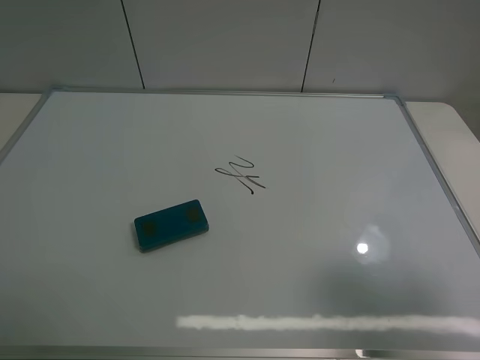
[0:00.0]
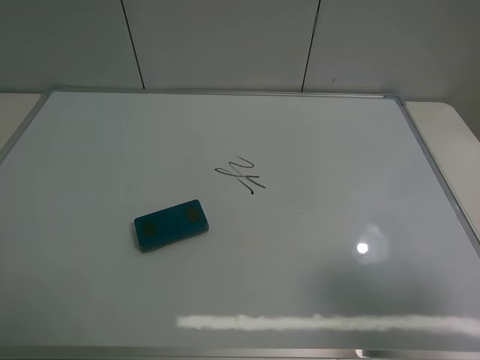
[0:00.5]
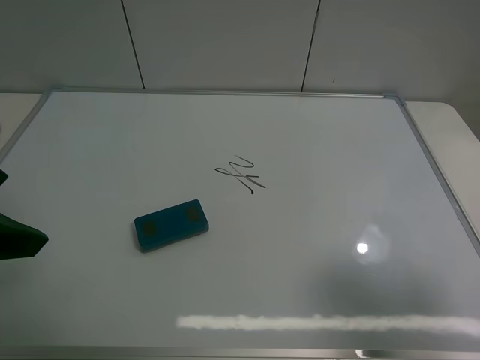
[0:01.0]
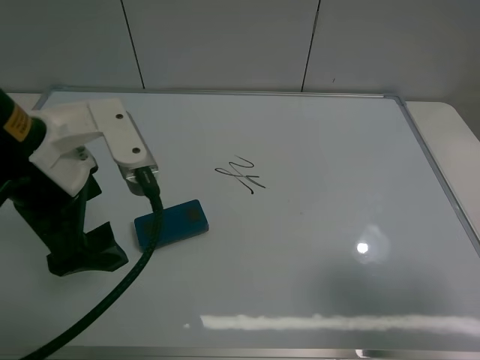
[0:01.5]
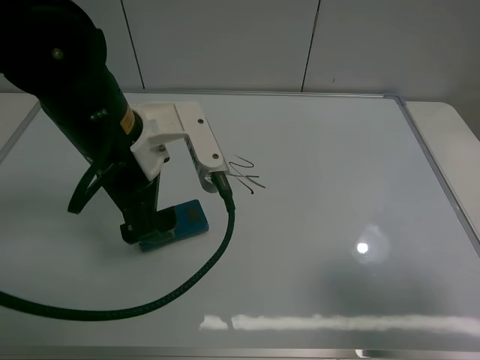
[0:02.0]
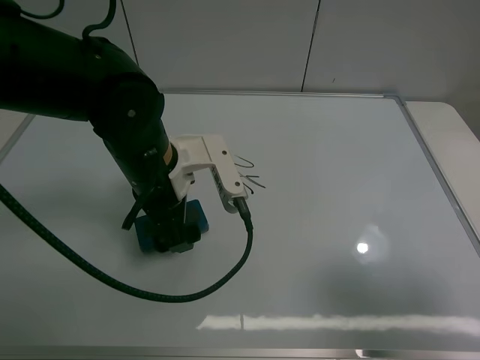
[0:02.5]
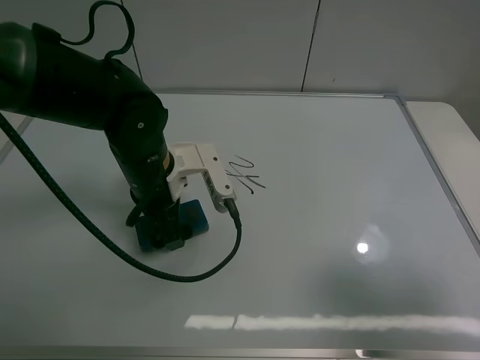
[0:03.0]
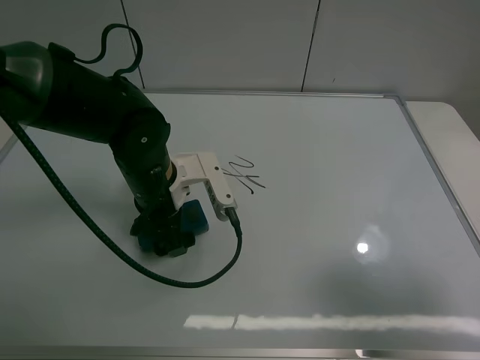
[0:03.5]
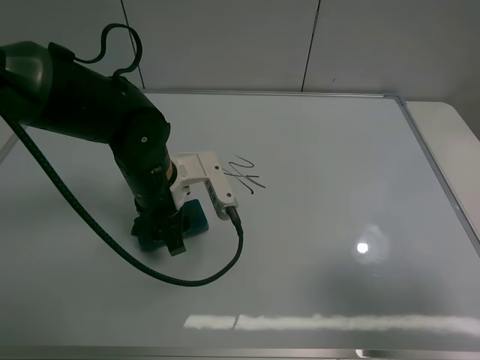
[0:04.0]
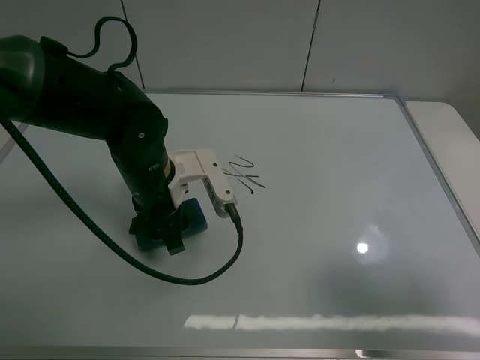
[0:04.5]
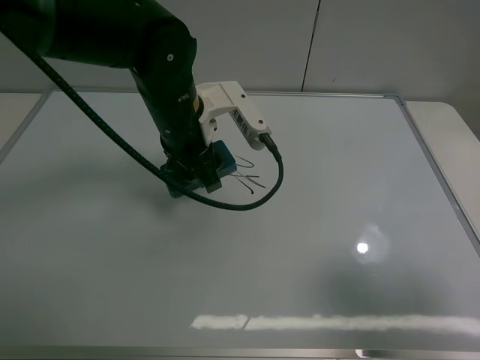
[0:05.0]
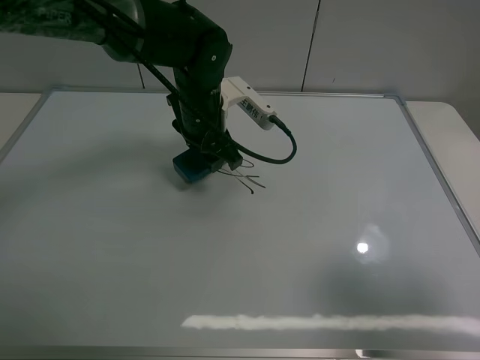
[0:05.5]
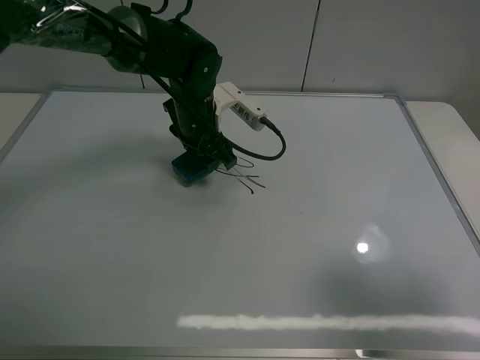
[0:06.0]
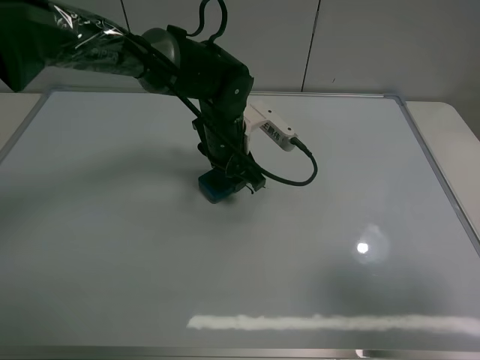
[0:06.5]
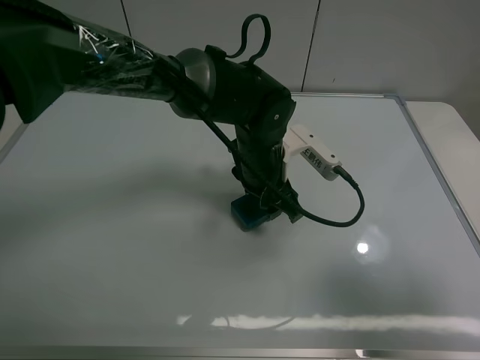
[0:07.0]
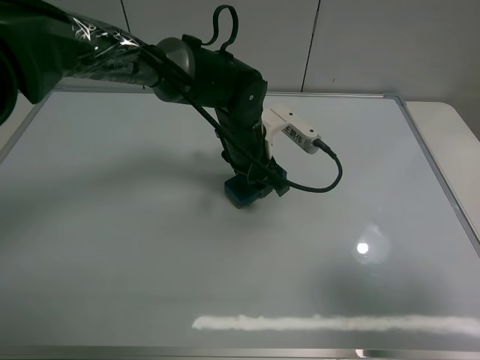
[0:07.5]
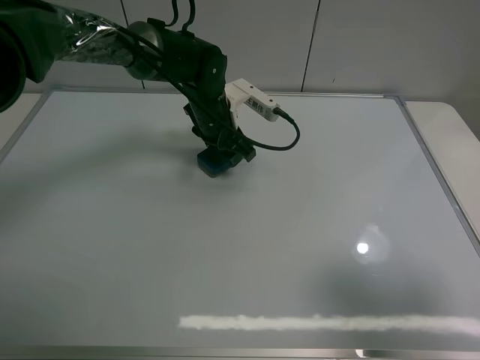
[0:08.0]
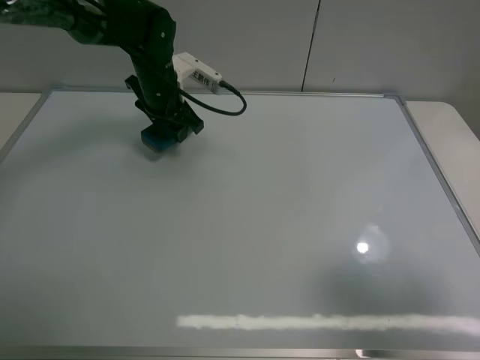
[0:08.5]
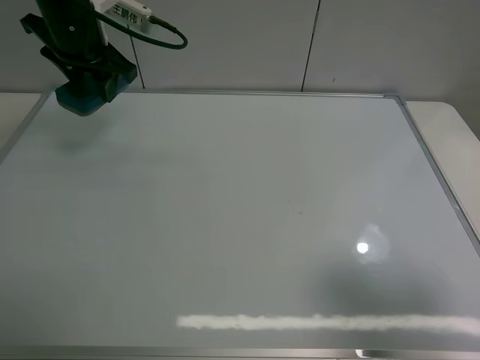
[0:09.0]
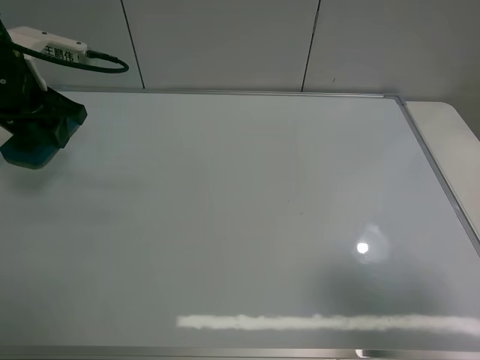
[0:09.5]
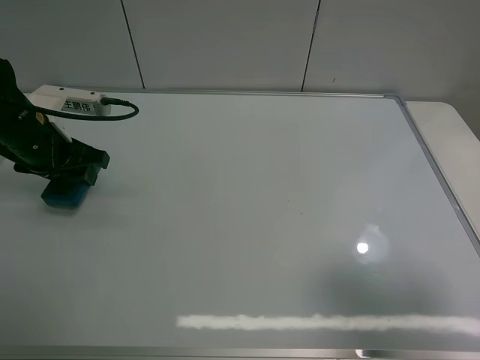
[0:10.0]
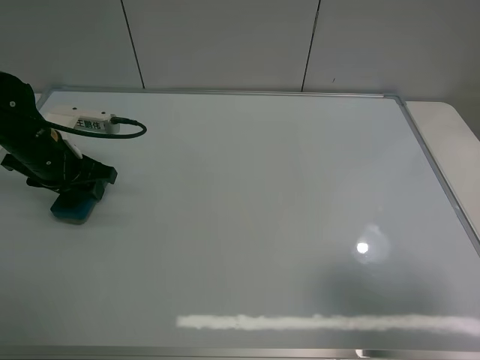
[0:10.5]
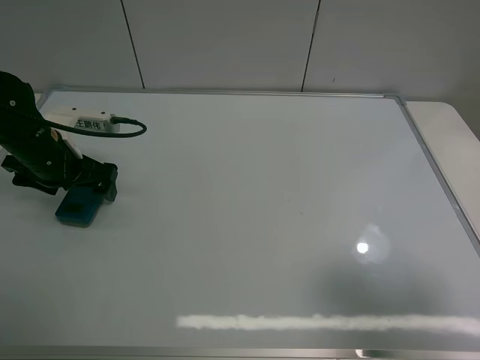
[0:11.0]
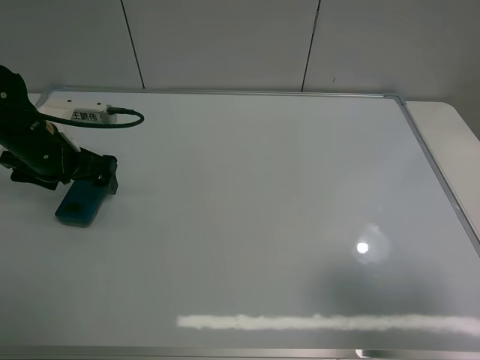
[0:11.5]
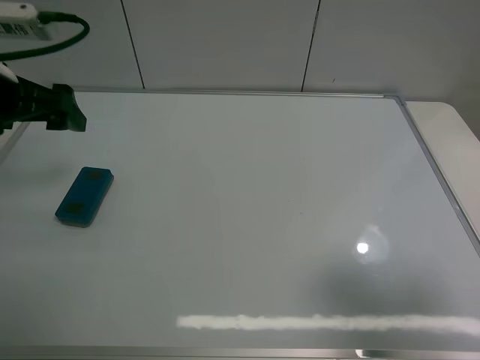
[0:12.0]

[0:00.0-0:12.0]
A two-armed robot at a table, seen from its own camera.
Task of the whole recording: use the left claw to pick up the whiteboard eraser, wipe the notes on the whiteboard clean, and then put them back in place.
Step, 0:00.0 to 0:04.0: Grasp the eraser with the left gripper.
Step, 0:04.5 to 0:08.0: Grasp the eraser and wipe the blackboard with the left gripper.
Step, 0:08.5 to 0:11.0: Place the eraser with the left gripper.
0:00.0 to 0:02.0: The left gripper shifts some 30 cm forward and to the right.
0:02.0 to 0:04.0: The left gripper travels downward by some 10 cm, and closes.
0:04.0 to 0:06.0: The left gripper shifts approximately 15 cm forward.
0:06.0 to 0:08.0: The left gripper travels backward and back again, roughly 10 cm each way.
0:08.0 to 0:10.0: The left gripper shifts approximately 25 cm to the left and backward.
0:10.0 to 0:12.0: The left gripper moves upward, about 10 cm, and opens its fingers.
